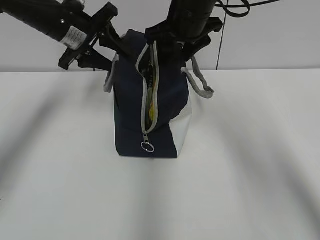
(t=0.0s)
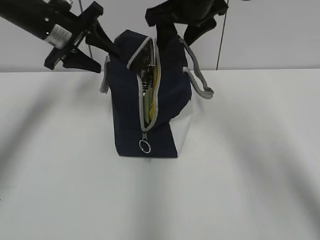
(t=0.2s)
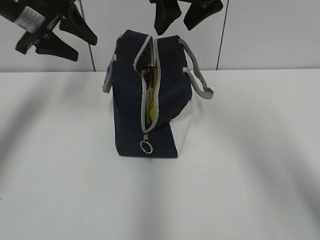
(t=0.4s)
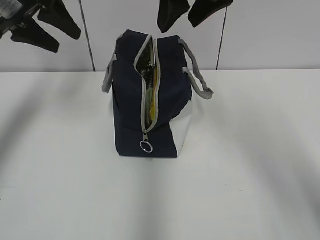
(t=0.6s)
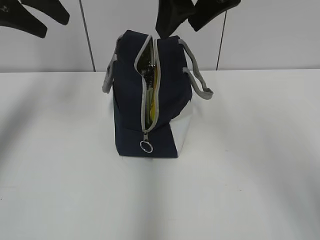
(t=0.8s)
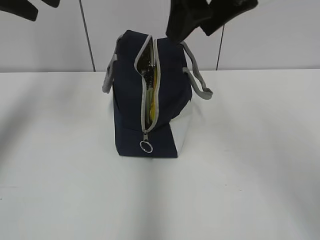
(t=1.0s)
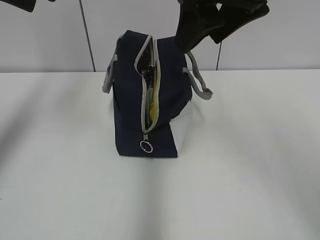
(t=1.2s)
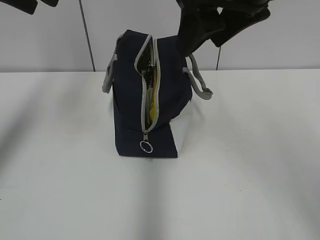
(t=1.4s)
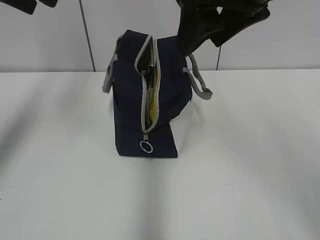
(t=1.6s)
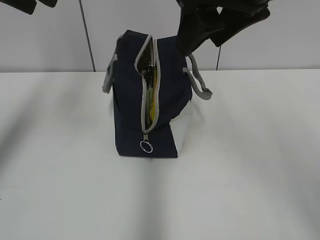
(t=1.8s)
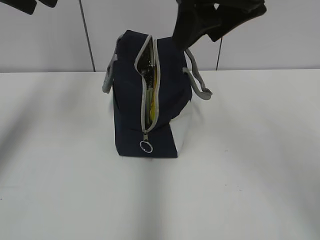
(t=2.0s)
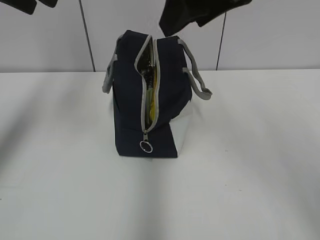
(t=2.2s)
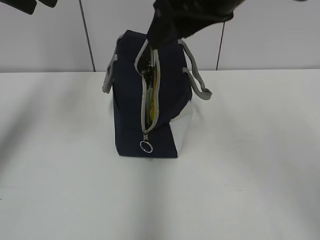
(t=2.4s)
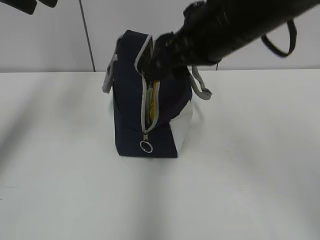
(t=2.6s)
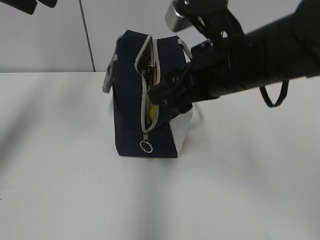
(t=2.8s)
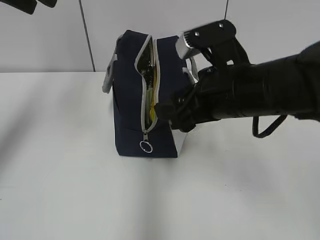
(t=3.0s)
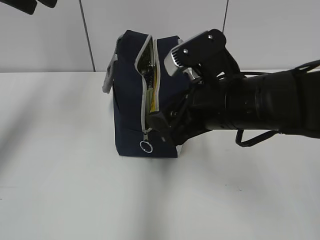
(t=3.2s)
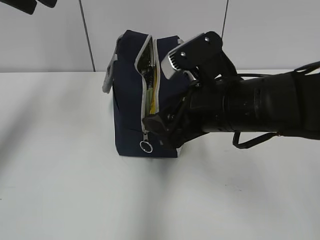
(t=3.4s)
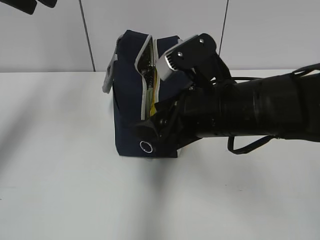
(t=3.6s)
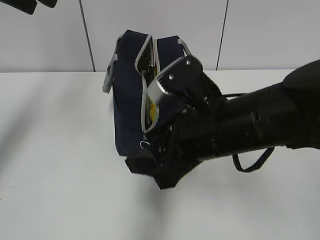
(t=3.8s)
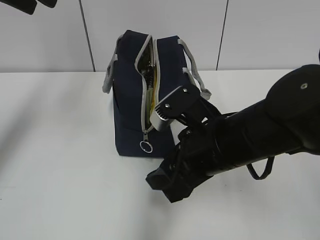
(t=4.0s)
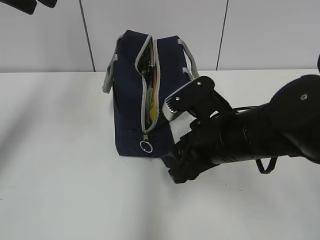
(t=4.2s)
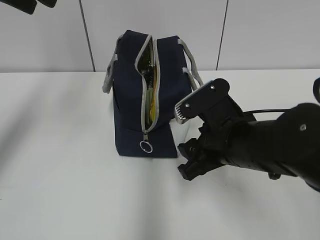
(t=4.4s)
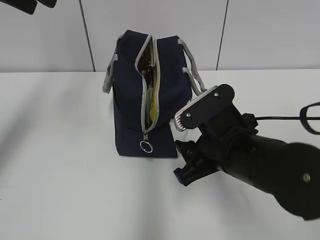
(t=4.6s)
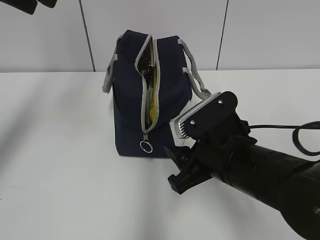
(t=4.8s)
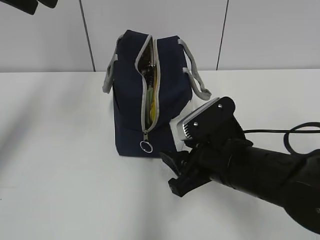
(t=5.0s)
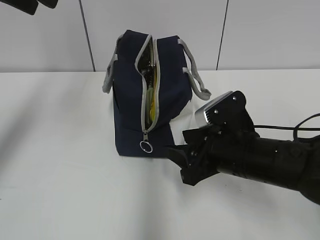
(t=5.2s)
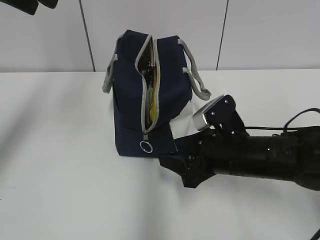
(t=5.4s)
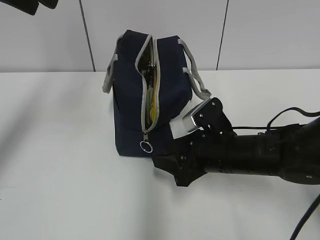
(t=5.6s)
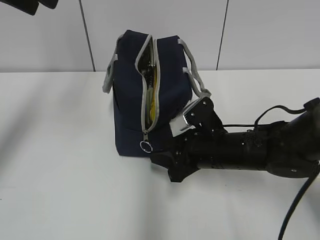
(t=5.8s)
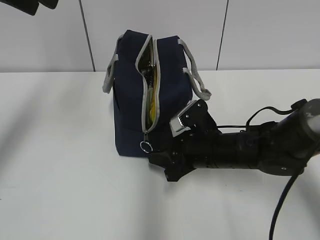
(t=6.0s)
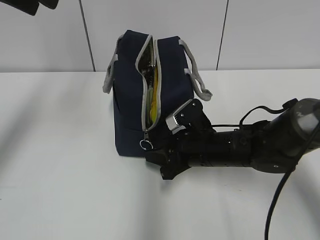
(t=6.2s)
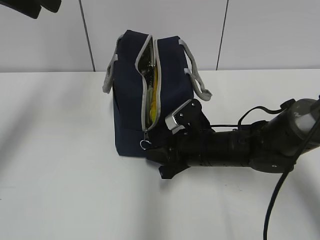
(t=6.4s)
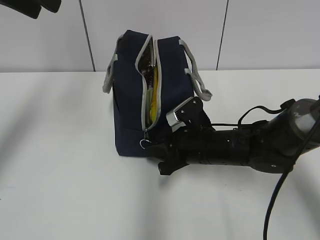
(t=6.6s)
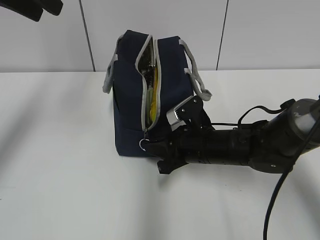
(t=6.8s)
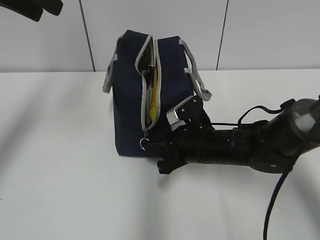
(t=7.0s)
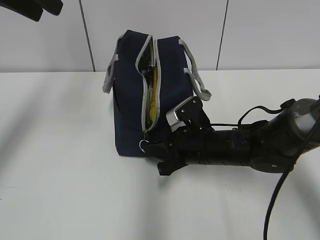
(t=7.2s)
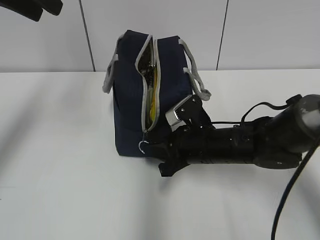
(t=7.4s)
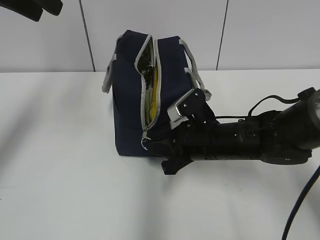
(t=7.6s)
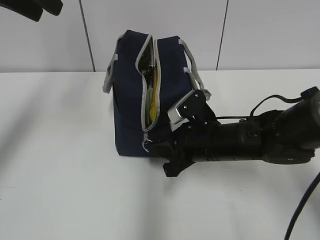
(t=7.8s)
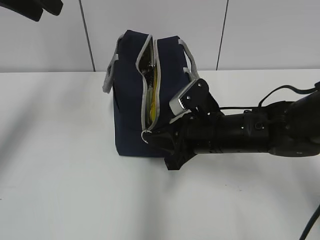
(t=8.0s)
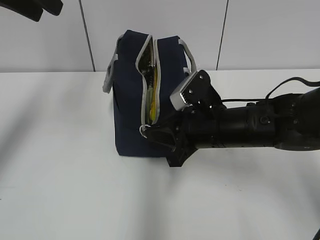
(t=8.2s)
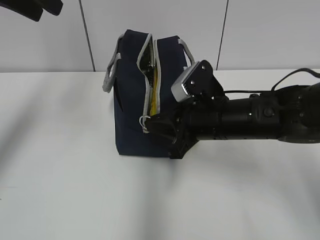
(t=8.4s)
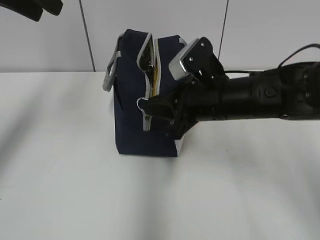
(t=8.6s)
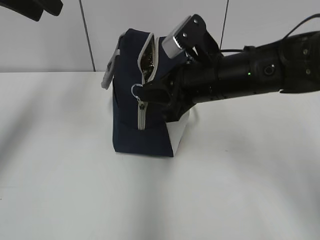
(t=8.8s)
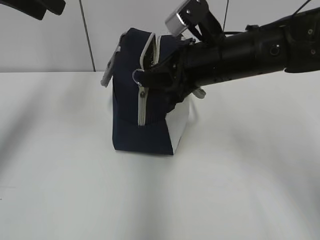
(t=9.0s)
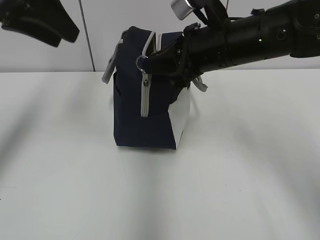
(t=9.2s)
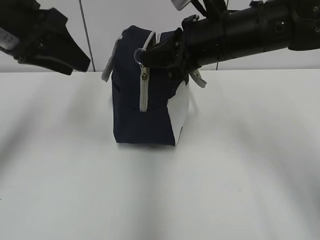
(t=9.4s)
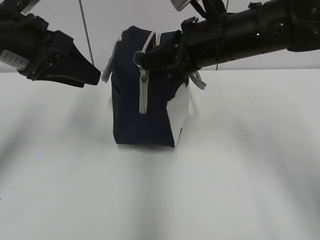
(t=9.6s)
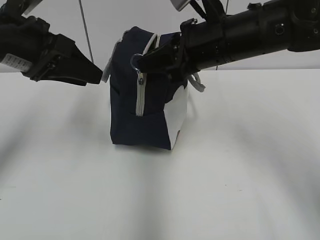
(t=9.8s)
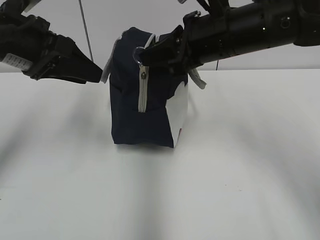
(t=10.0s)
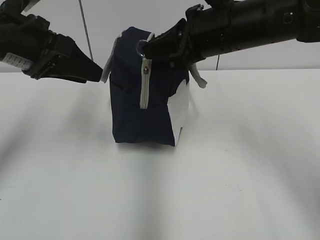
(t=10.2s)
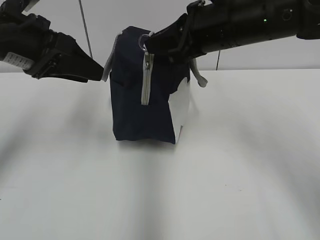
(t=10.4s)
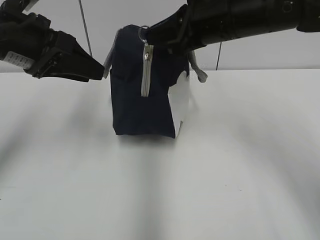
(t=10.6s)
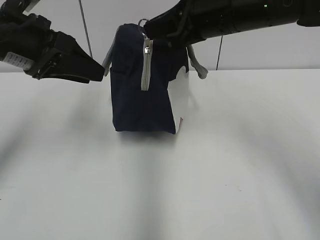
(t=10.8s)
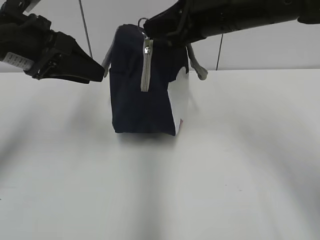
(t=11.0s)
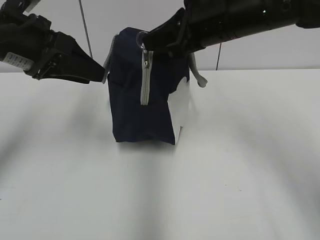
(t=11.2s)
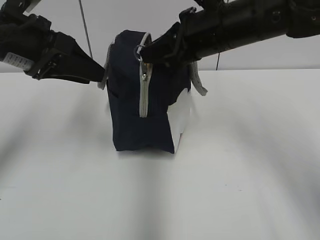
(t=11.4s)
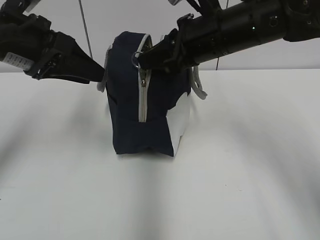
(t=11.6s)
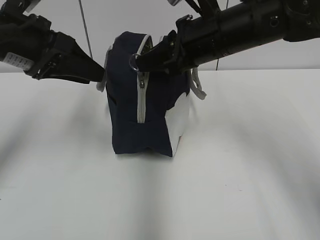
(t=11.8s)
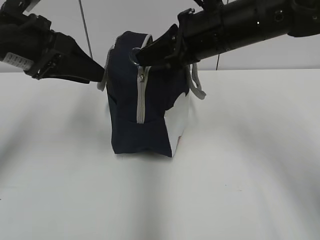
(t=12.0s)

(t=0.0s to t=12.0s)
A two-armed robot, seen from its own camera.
t=0.0s - t=1.6s: The right gripper is displaced backward and upward by approximately 20 cm. Meanwhile the left gripper goes some 20 cm upward and backward.
t=1.6s - t=3.0s: The right gripper shifts some 15 cm downward.
t=3.0s - t=4.4s: The right gripper travels downward by some 5 cm.
t=4.4s - t=6.0s: The right gripper moves downward and forward, some 10 cm.
t=6.0s - t=7.6s: The right gripper closes up.
t=7.6s - t=9.0s: The right gripper travels upward by approximately 15 cm.
t=9.0s - t=10.4s: The left gripper goes some 10 cm downward.
t=10.4s - t=12.0s: There are only small adjustments of the grippers.

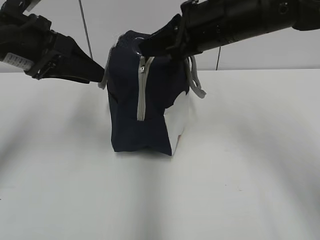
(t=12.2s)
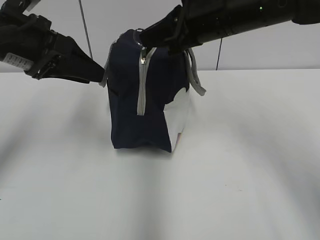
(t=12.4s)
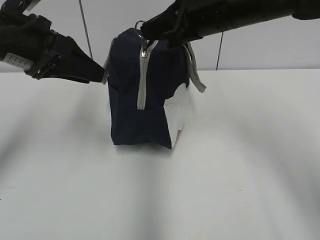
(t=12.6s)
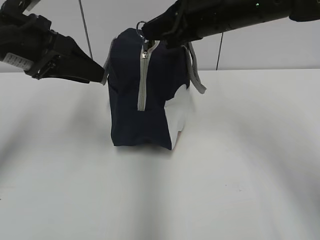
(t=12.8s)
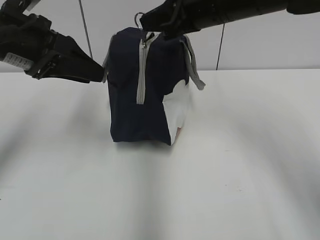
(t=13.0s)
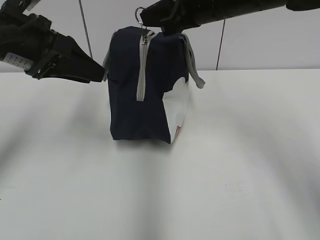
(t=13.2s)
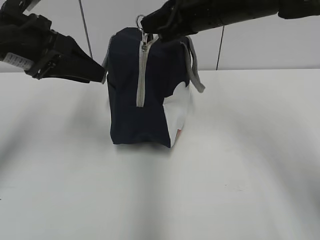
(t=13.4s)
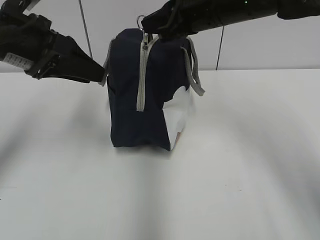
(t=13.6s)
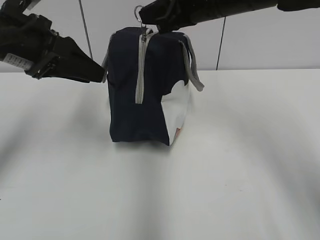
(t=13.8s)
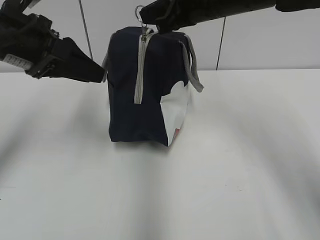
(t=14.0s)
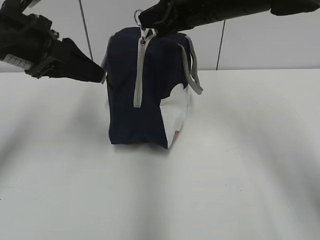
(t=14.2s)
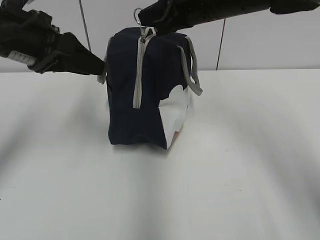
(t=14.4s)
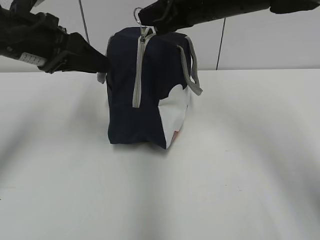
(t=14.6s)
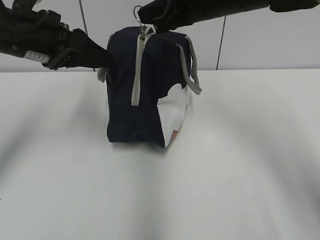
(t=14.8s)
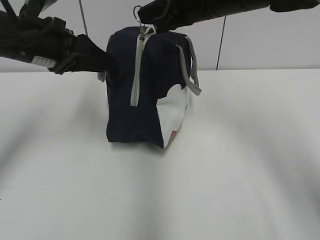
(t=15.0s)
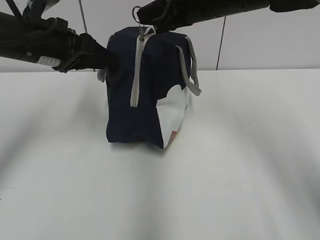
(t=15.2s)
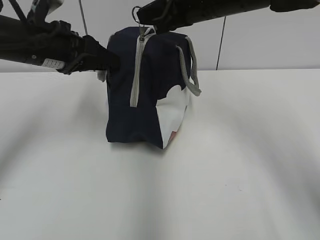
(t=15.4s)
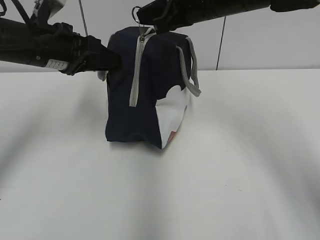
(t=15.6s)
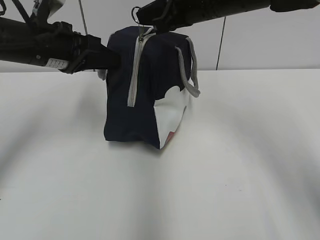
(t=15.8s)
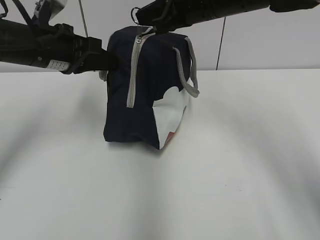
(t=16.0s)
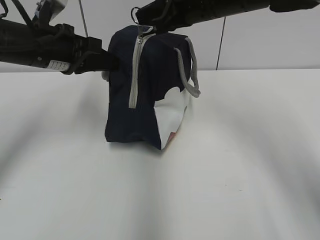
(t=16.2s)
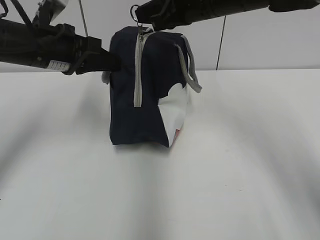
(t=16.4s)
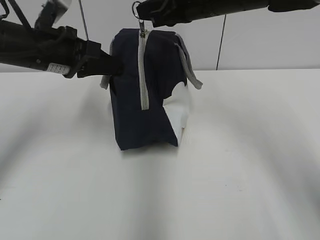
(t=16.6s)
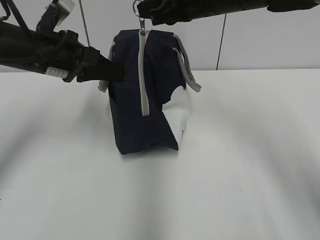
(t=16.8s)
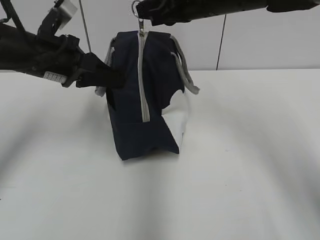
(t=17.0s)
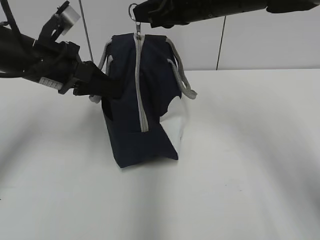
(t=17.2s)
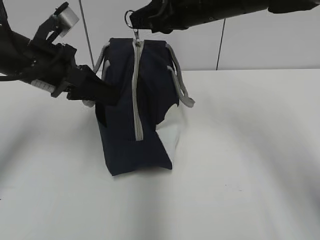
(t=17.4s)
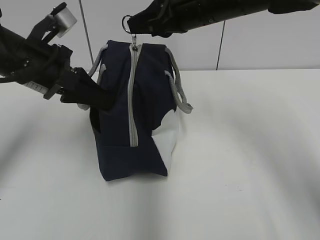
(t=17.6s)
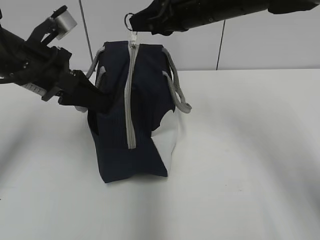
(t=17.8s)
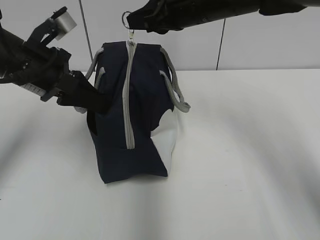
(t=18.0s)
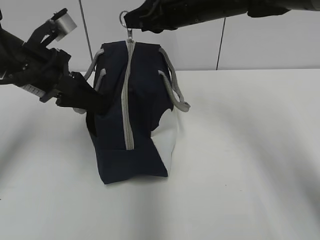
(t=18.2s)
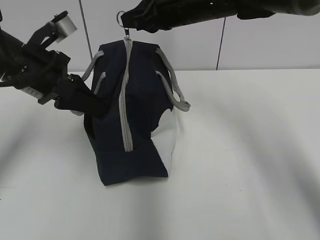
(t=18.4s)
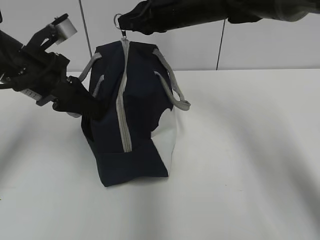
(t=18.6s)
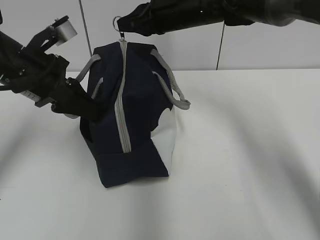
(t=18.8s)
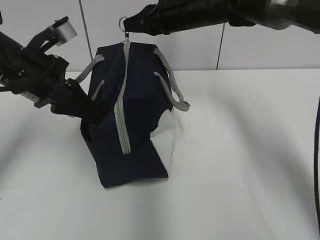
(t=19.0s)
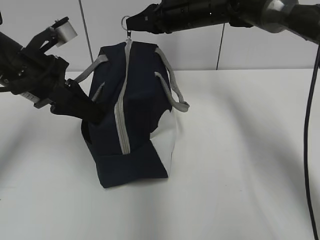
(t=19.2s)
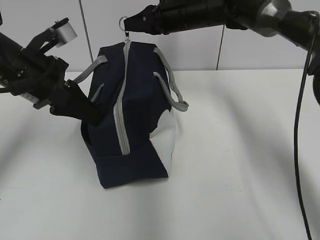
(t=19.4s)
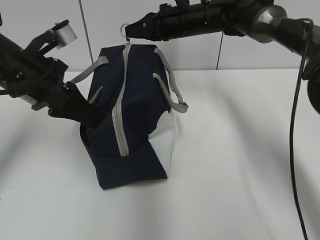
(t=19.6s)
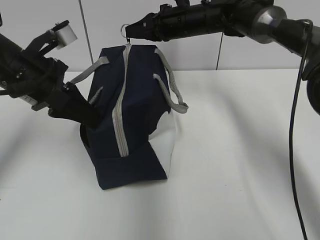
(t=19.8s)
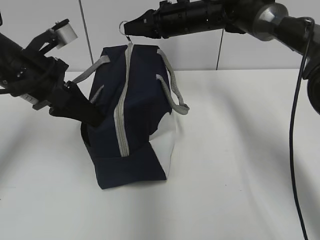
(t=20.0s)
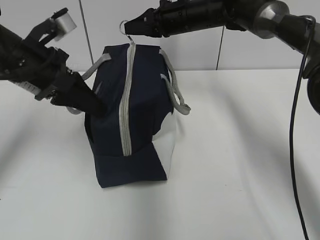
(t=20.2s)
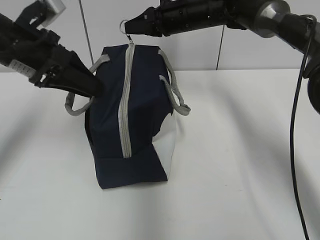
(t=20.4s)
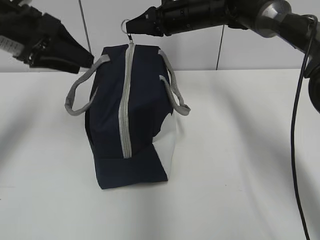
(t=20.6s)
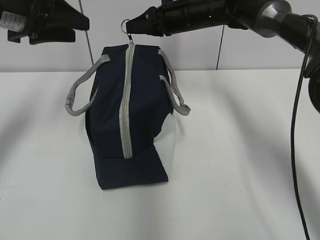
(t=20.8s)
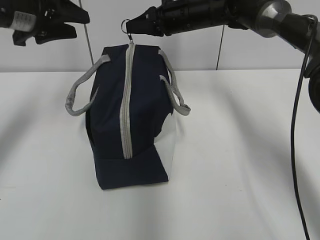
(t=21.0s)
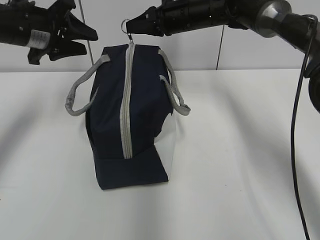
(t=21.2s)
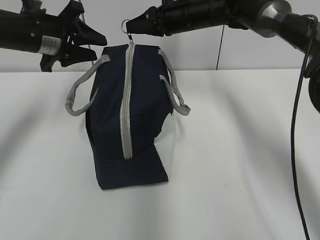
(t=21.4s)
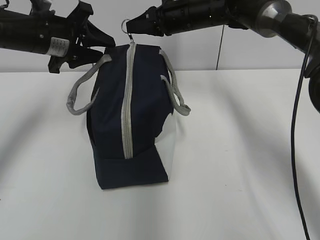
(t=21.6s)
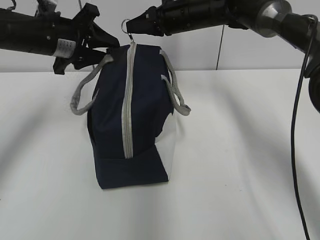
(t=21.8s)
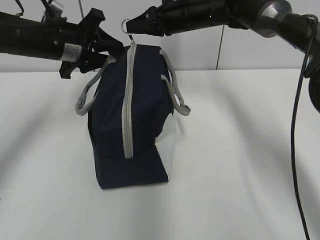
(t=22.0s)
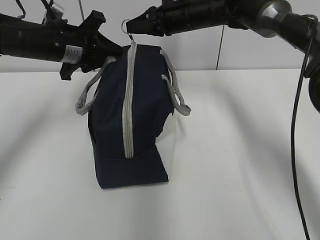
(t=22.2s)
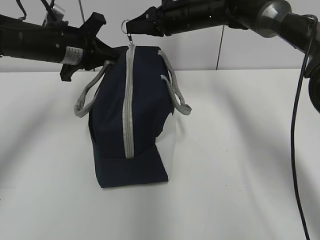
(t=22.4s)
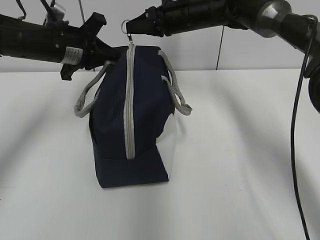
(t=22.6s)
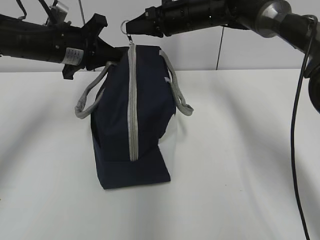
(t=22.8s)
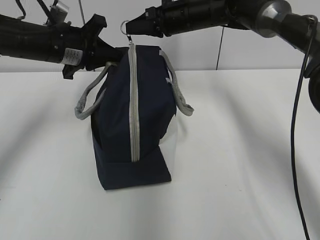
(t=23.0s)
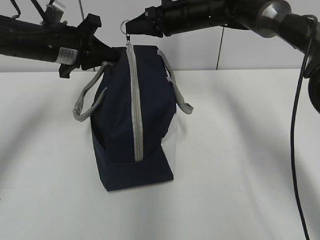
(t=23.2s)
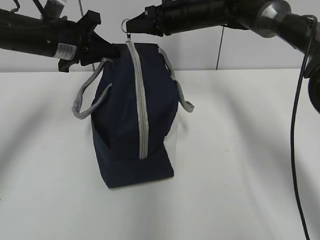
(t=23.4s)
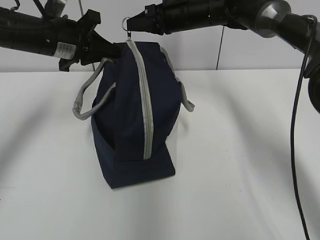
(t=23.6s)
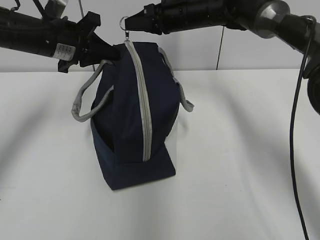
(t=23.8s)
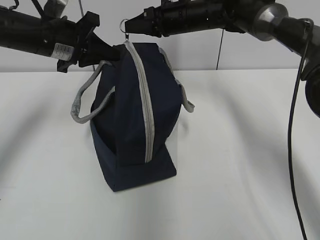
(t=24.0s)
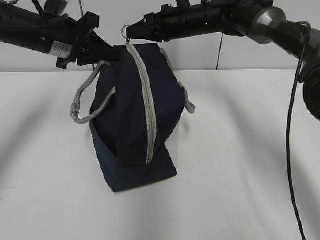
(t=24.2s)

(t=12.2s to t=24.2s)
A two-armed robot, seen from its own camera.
t=12.2s - t=13.8s: The grippers make only small movements.
t=13.8s - t=15.2s: The left gripper shifts by about 5 cm.
t=15.2s - t=16.6s: The left gripper closes its fingers.
t=18.2s - t=19.8s: The right gripper is displaced forward and downward by approximately 10 cm.
t=19.8s - t=21.2s: The left gripper is displaced forward by about 10 cm, and opens up.
t=21.2s - t=22.6s: The left gripper ends up about 5 cm from where it was, and closes its fingers.
